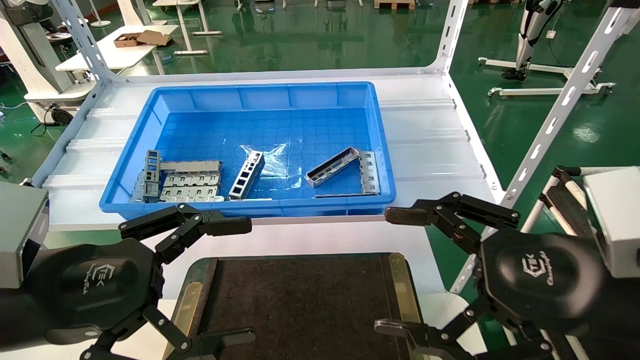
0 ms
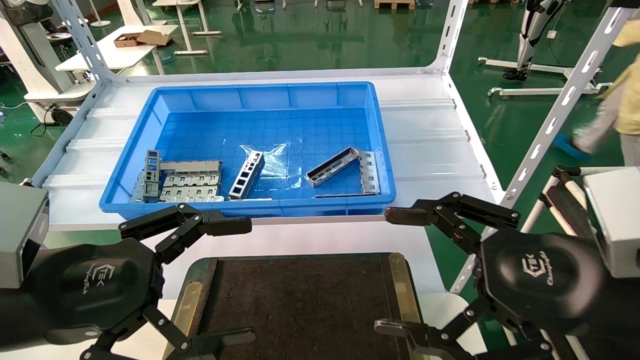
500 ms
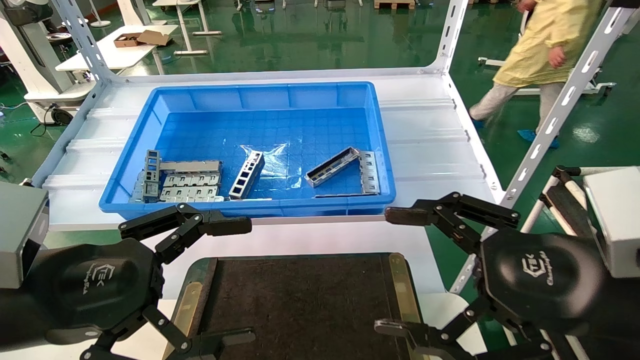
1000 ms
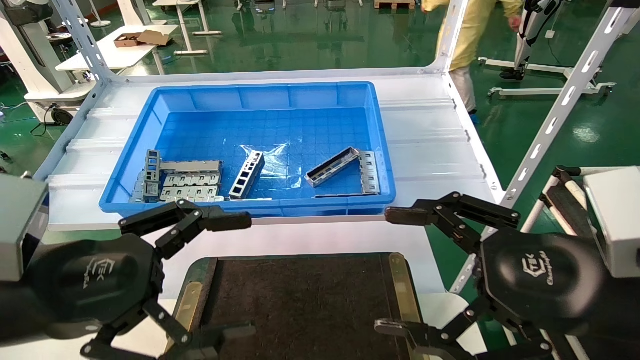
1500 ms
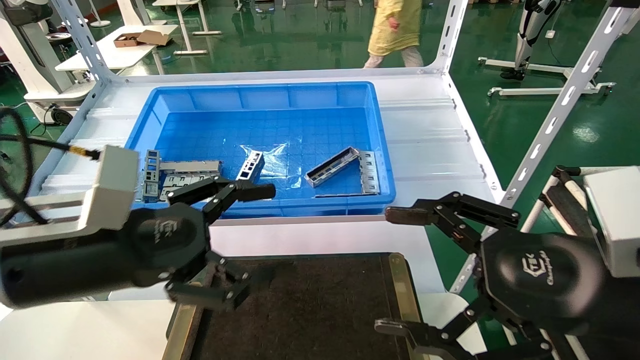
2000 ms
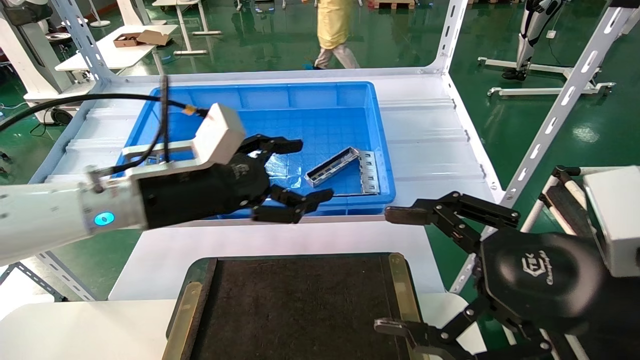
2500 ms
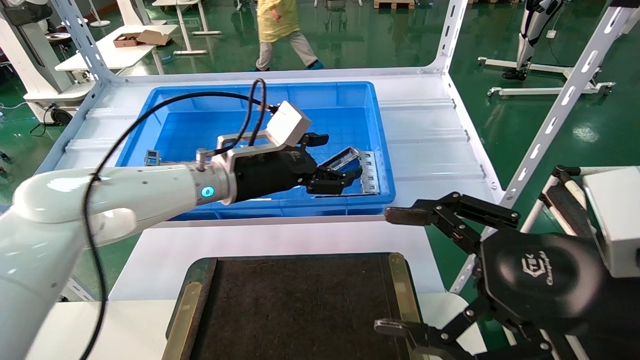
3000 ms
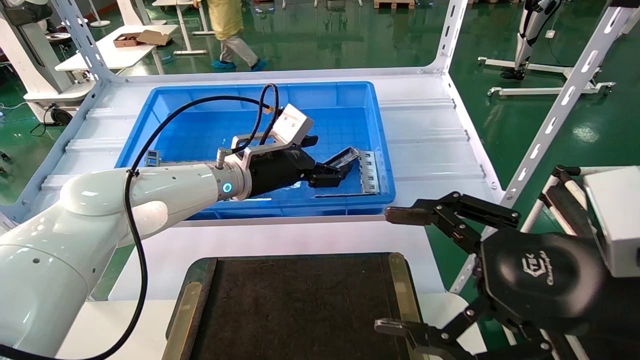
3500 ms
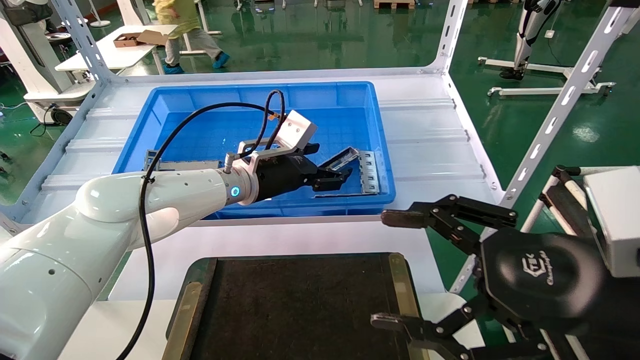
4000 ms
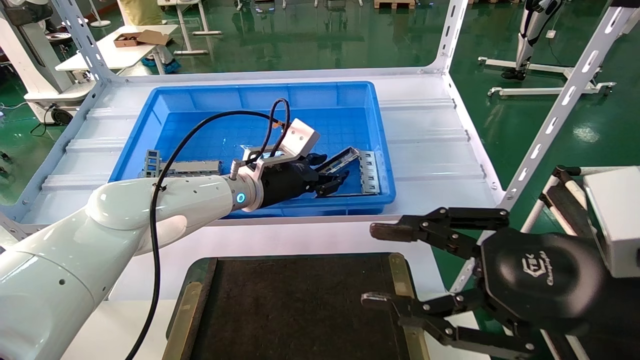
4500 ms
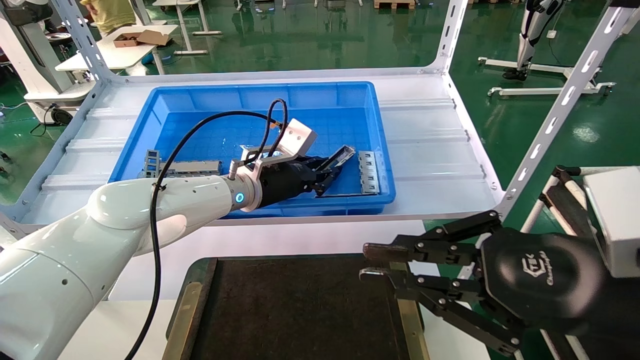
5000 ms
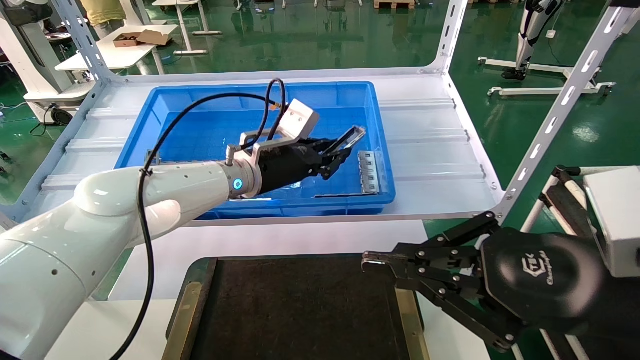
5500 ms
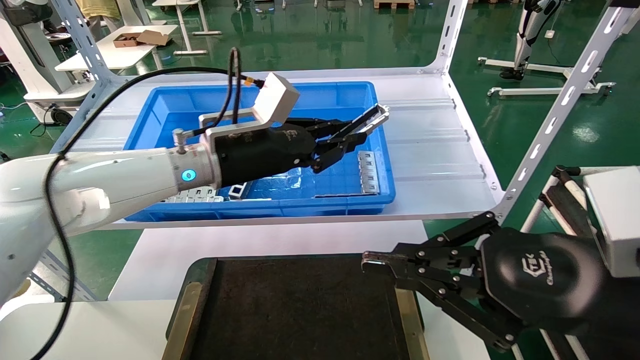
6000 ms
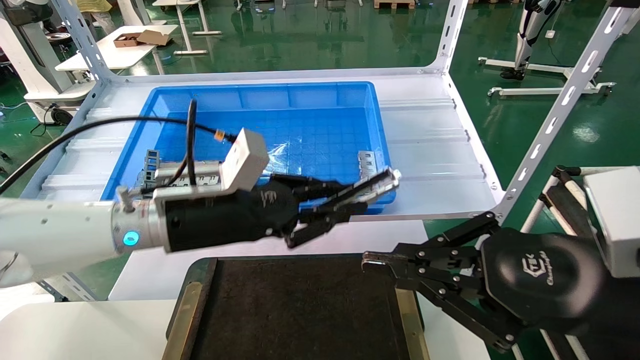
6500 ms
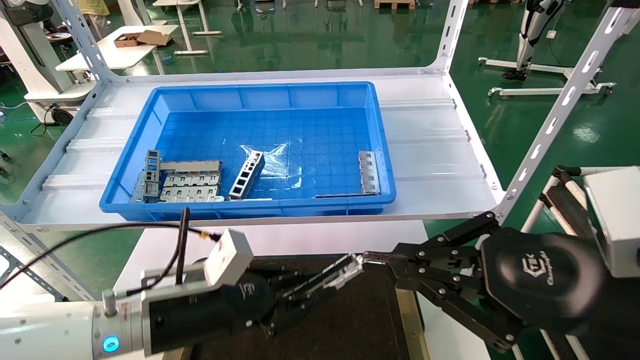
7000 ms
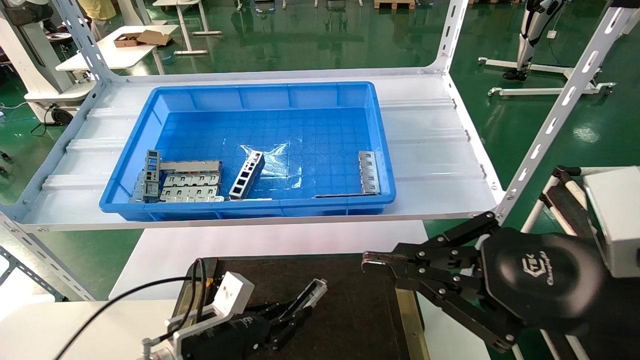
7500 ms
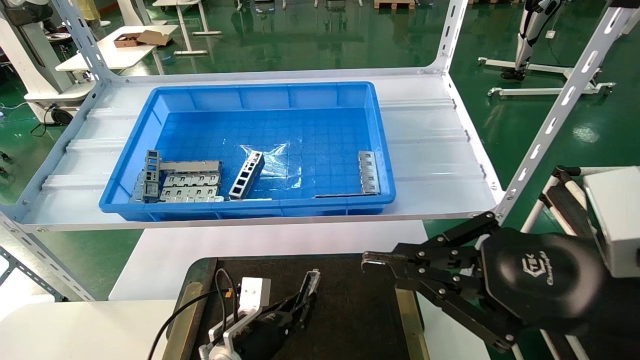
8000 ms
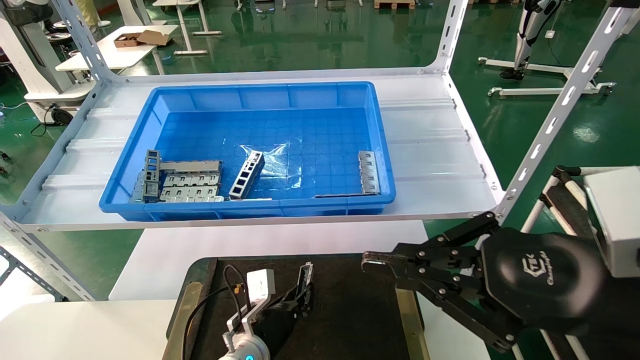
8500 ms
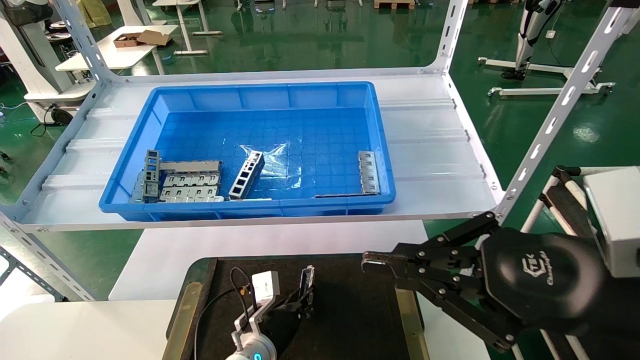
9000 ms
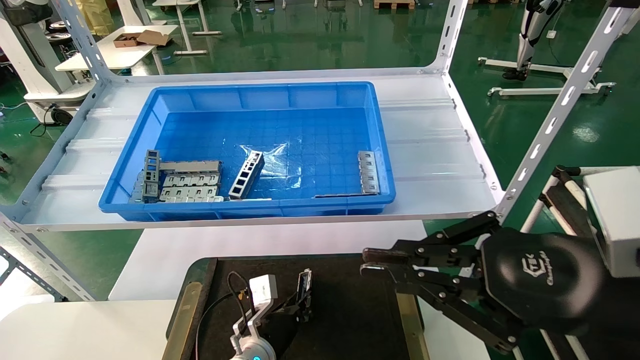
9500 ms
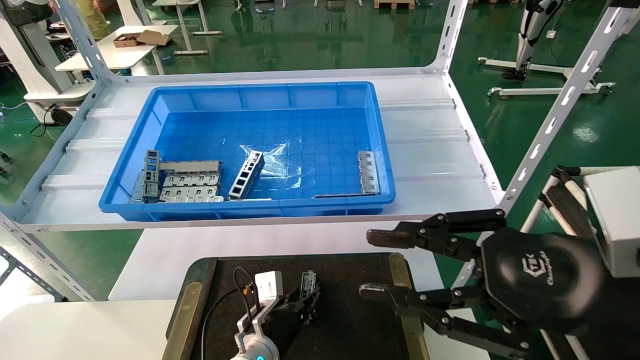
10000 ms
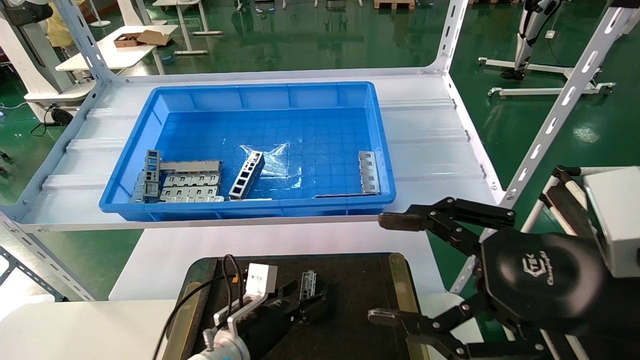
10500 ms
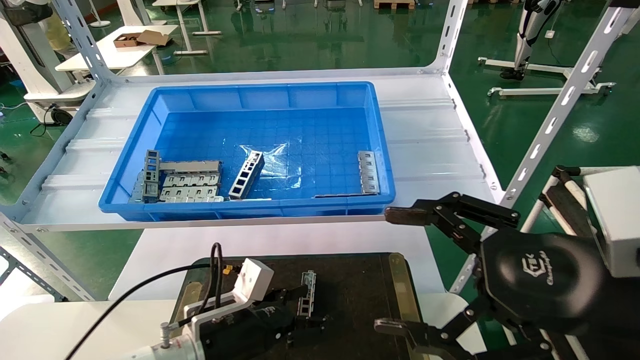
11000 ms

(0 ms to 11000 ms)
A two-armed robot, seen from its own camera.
Task of the whole recording: Grasp the part with one hand and place it on the black container.
Step, 2500 ms - 5500 ms: Pick up the front USB bracket from the feeding area.
Step, 6000 ms - 9500 ms: Place the front USB bracket into the box.
0 ms - 2000 ms: The left gripper goes approximately 5 cm forward.
2000 ms - 3500 ms: The left gripper is displaced forward and to the right by some 25 cm.
3500 ms - 5500 ms: The right gripper closes. The left gripper closes.
5500 ms - 7500 ms: The left gripper goes approximately 25 cm downward and backward.
7500 ms - 9000 ms: The left gripper moves forward, to the right and downward, some 15 cm.
9000 ms - 11000 ms: The left gripper moves upward, backward and to the left, some 15 cm, and opens. Meanwhile the right gripper opens its fingers.

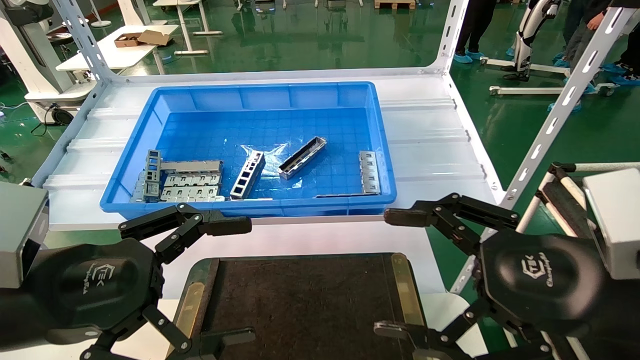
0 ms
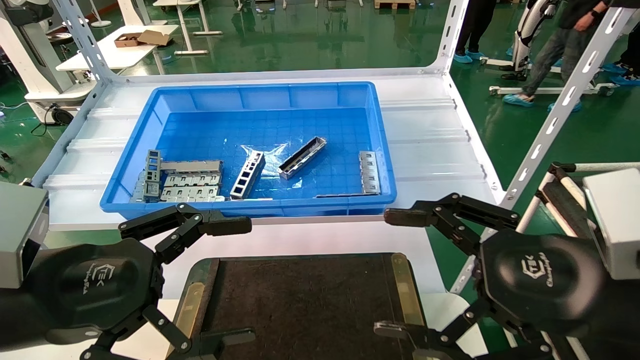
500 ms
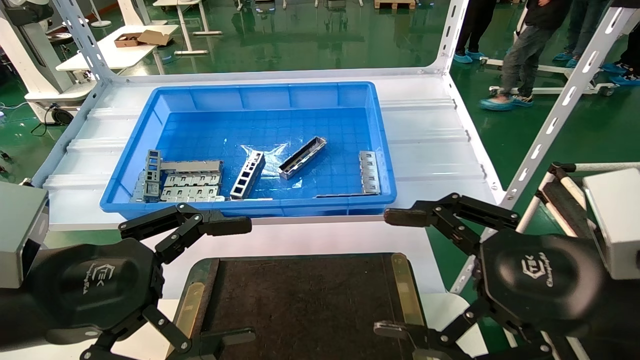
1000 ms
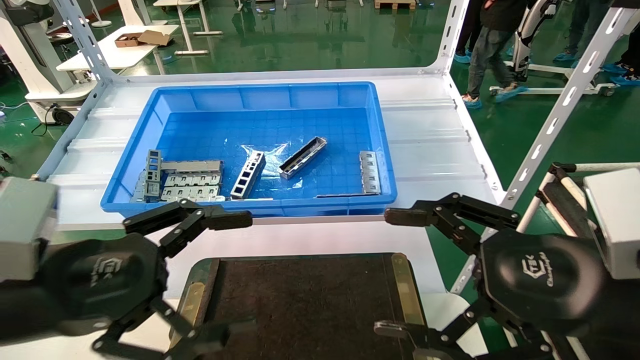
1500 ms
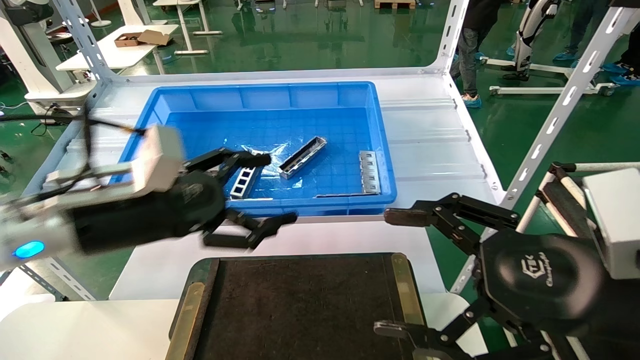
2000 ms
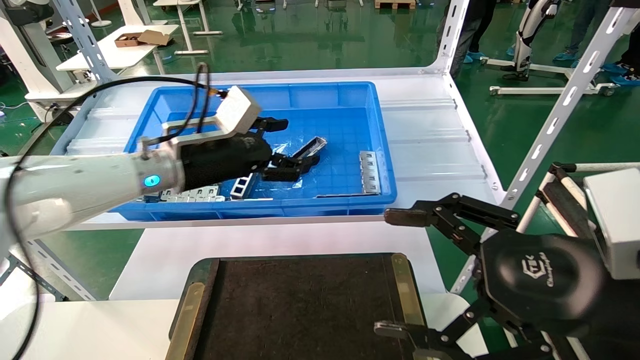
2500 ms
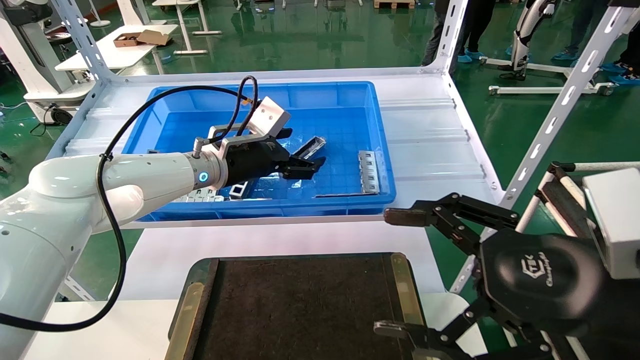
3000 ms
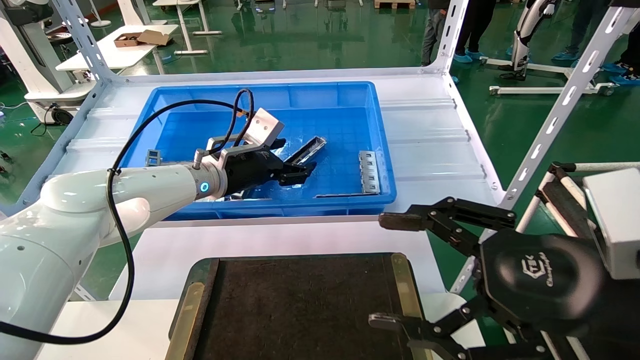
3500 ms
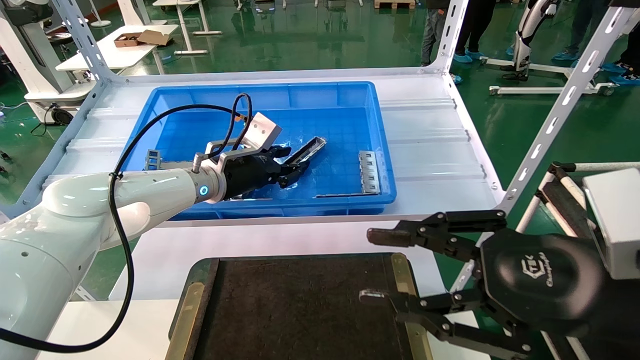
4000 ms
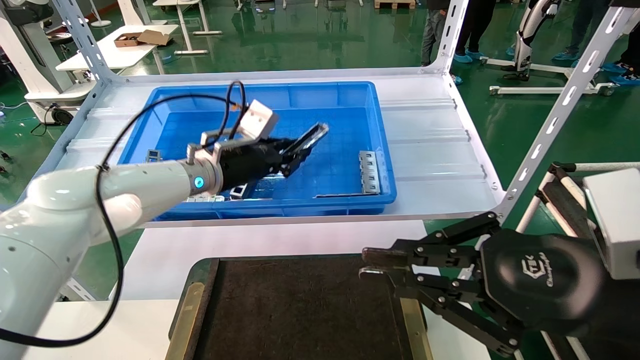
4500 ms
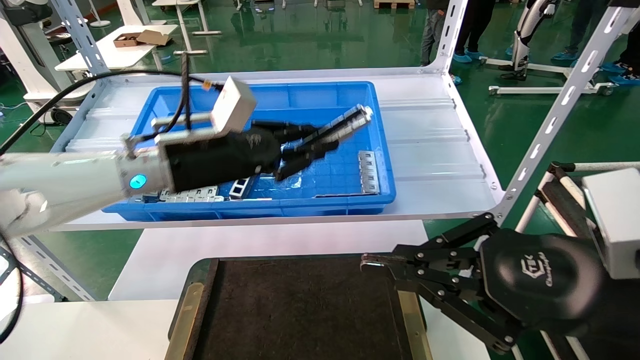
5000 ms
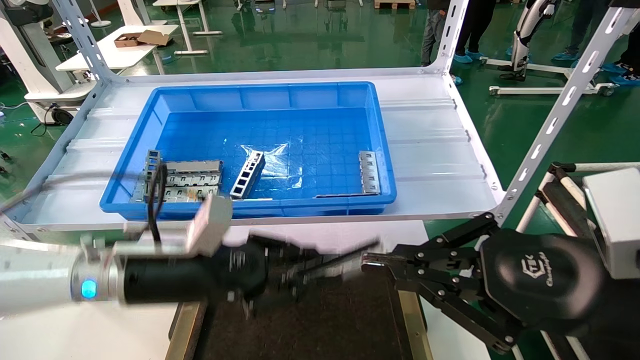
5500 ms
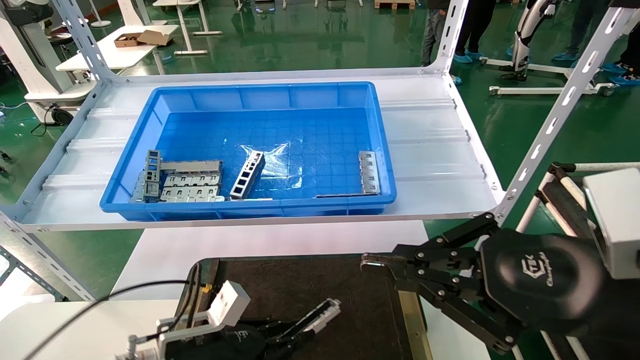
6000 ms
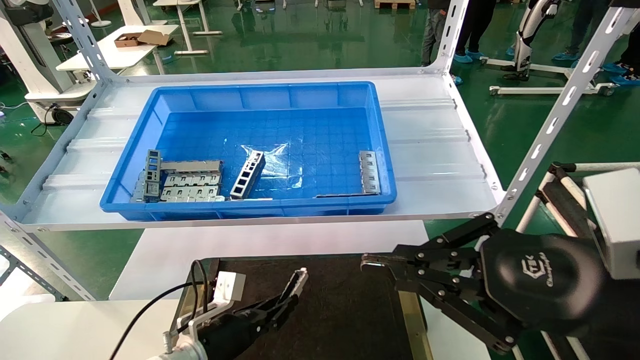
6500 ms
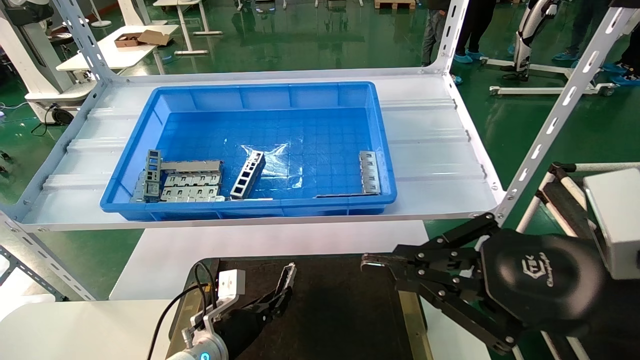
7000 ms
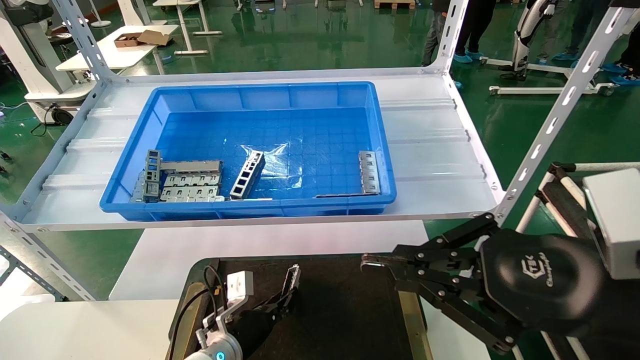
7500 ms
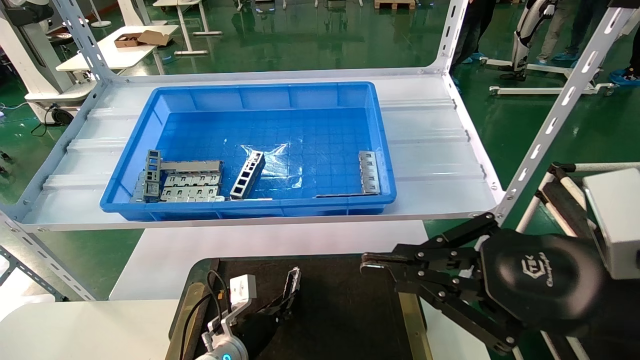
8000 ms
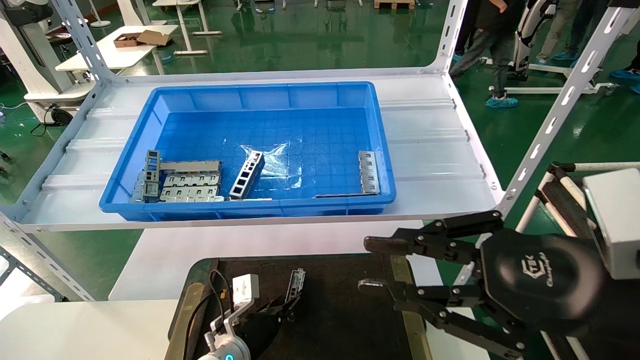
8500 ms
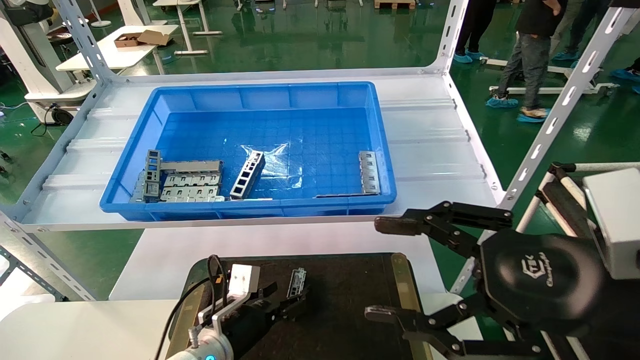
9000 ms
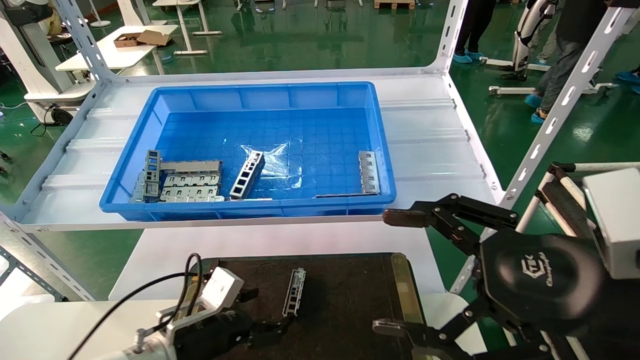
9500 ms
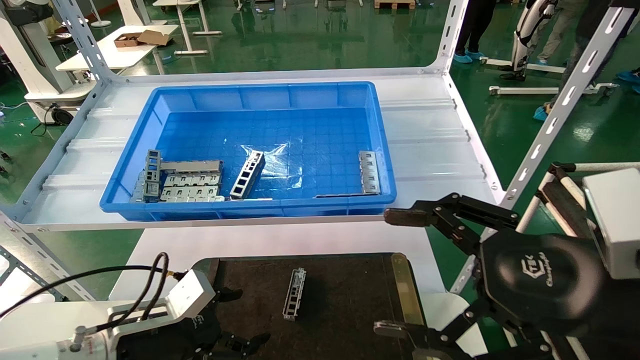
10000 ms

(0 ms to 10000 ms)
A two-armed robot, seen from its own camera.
Task of the whole recording: Grasp the part with one hand and place it on the black container.
Step, 2000 ms - 4500 ms: Pick up the front USB bracket from the feeding area.
Step, 5000 ms - 8000 ms: Place the front USB bracket into the box.
0 ms - 2000 ms: The left gripper goes roughly 10 cm forward.
2000 ms - 4000 ms: The left gripper shifts some 20 cm forward, and closes. The right gripper closes up.
4000 ms - 6000 ms: The right gripper closes up. The left gripper travels downward and backward by about 25 cm, and closes up.
6000 ms - 8000 ms: The left gripper is displaced downward, forward and to the right by approximately 15 cm.
8000 ms - 10000 ms: The right gripper opens up, while the left gripper shifts roughly 20 cm upward, backward and to the left, and opens its fingers.
